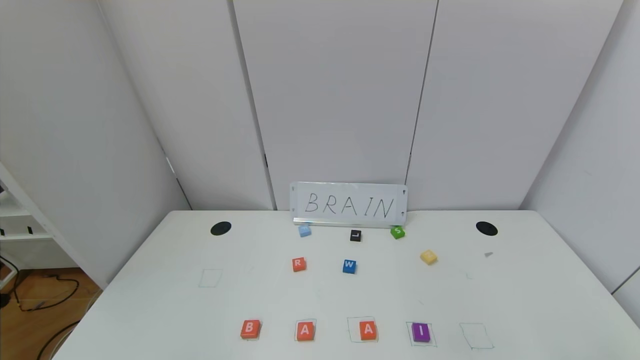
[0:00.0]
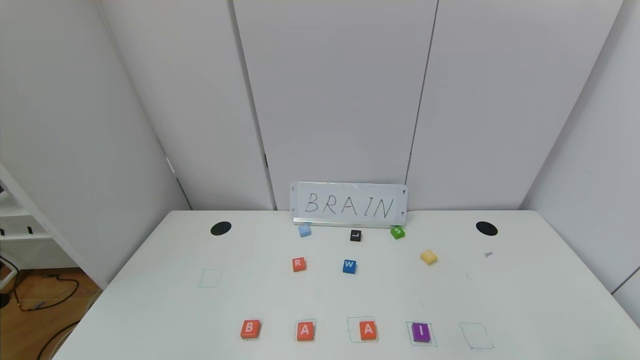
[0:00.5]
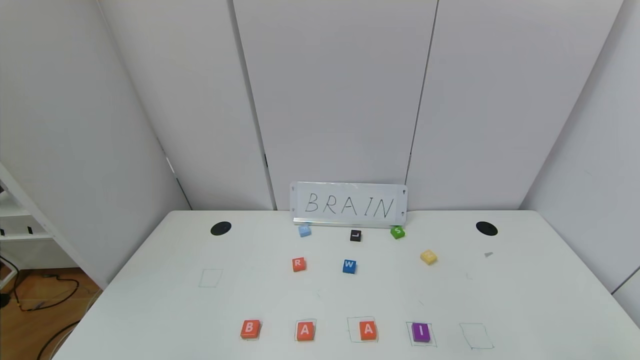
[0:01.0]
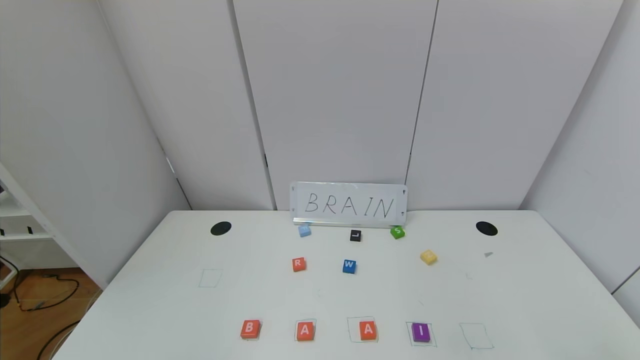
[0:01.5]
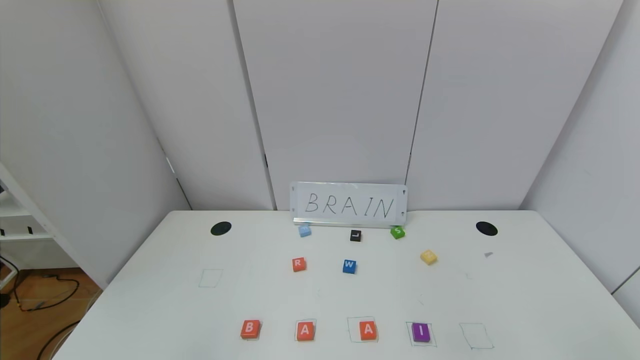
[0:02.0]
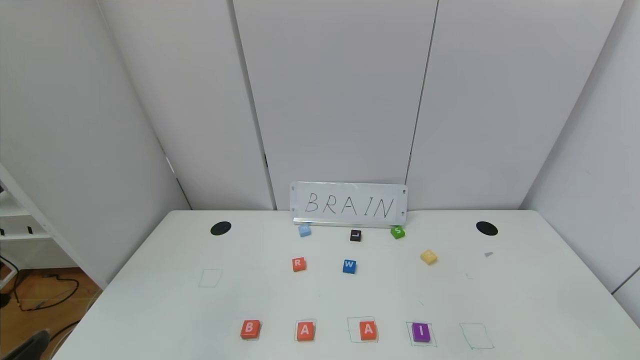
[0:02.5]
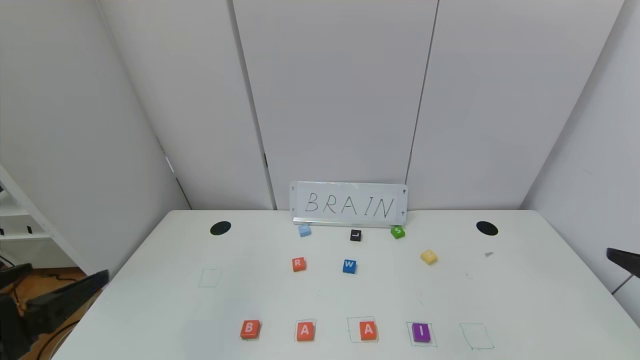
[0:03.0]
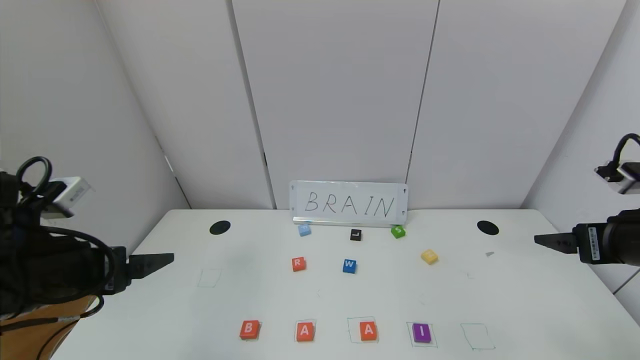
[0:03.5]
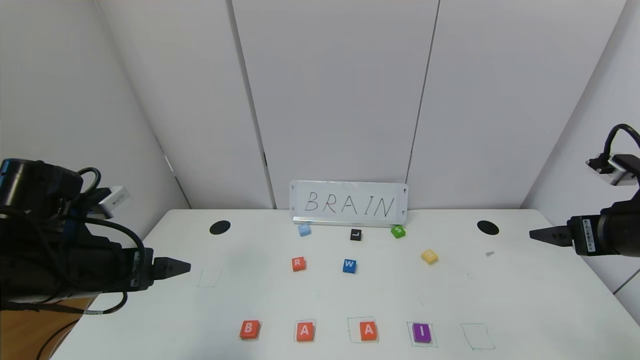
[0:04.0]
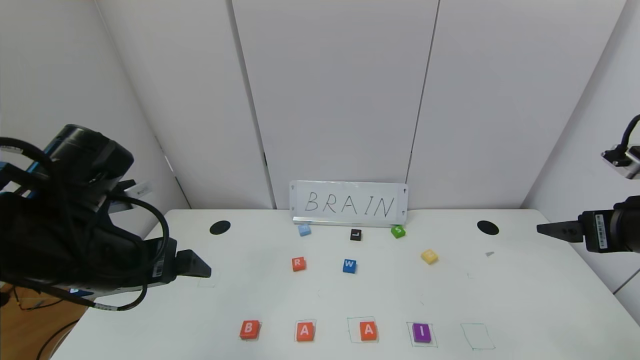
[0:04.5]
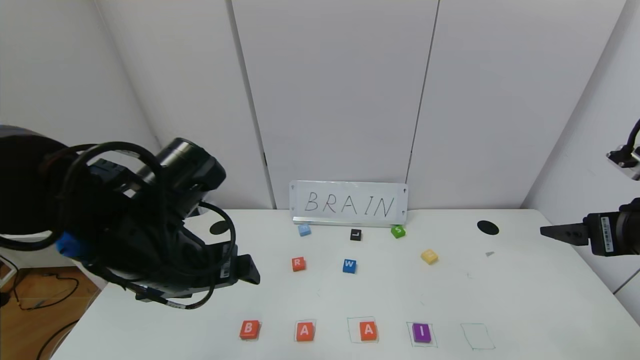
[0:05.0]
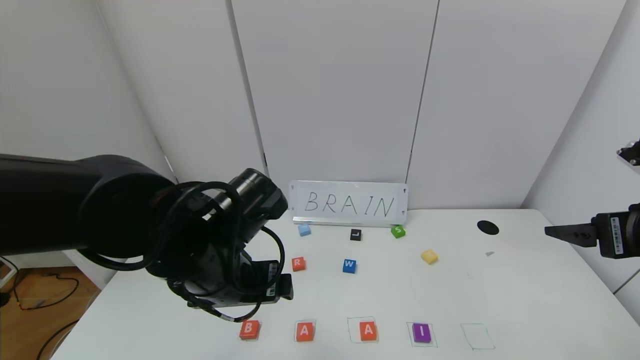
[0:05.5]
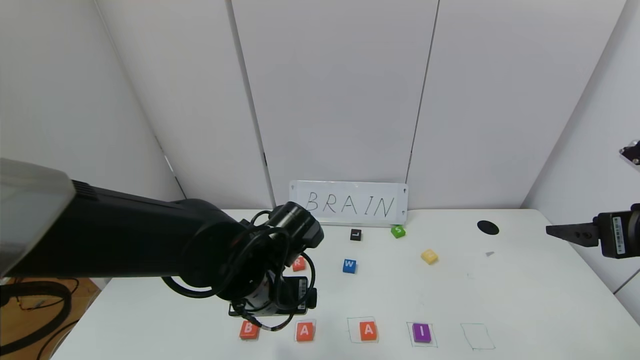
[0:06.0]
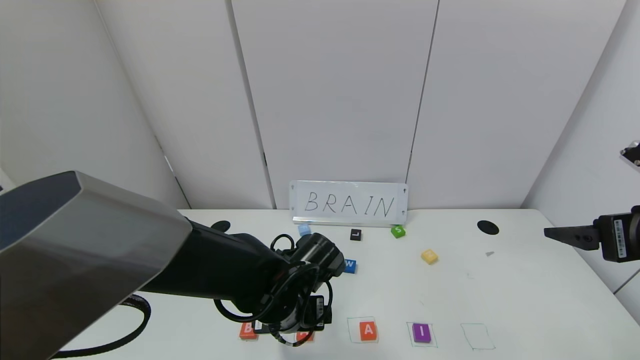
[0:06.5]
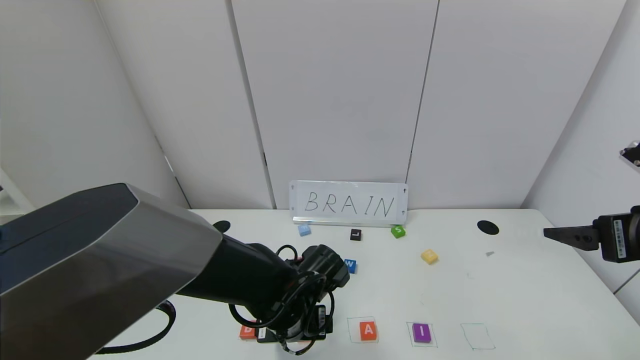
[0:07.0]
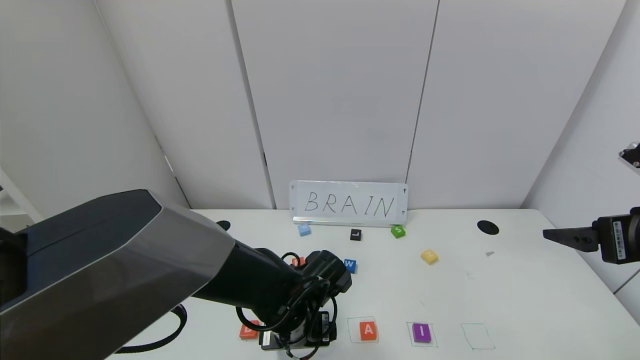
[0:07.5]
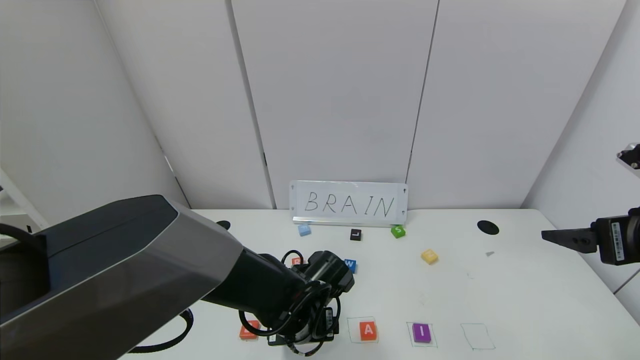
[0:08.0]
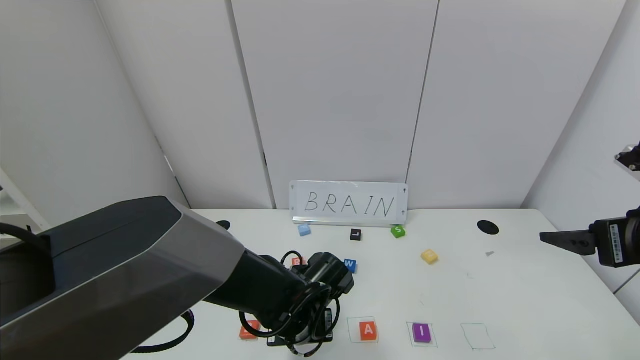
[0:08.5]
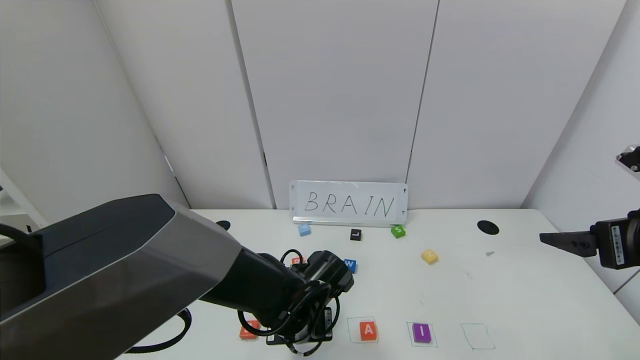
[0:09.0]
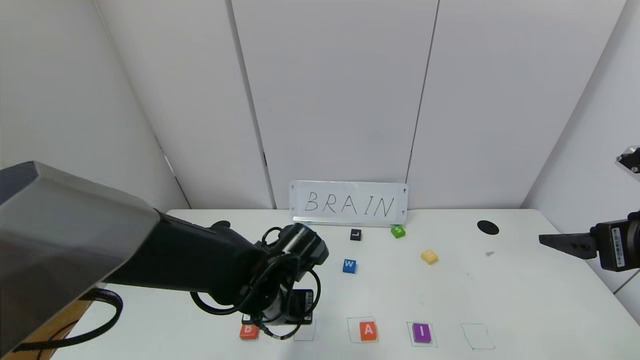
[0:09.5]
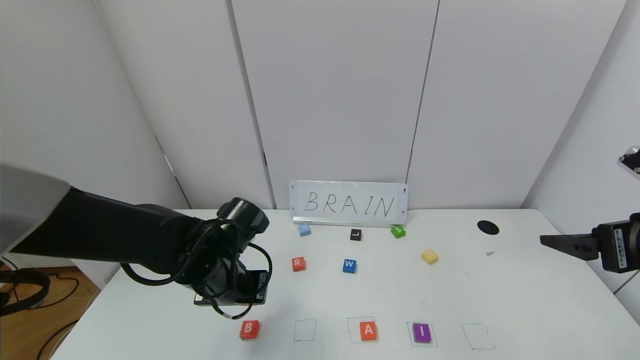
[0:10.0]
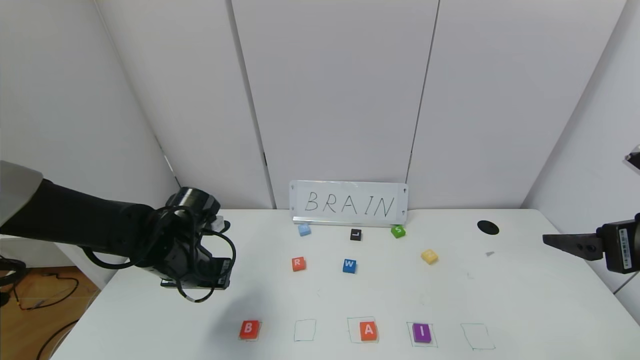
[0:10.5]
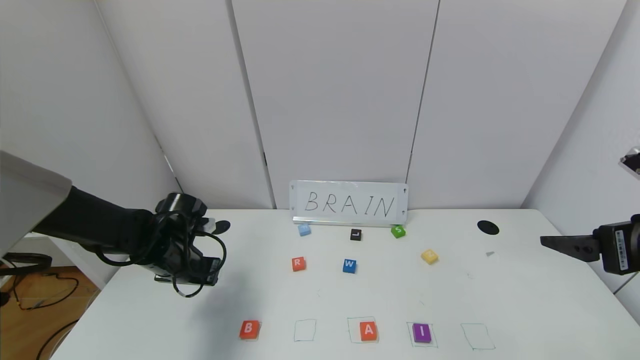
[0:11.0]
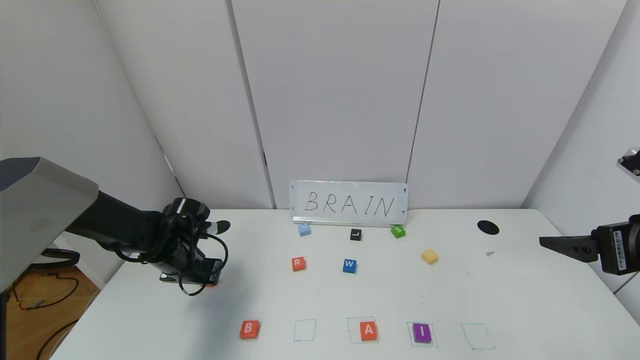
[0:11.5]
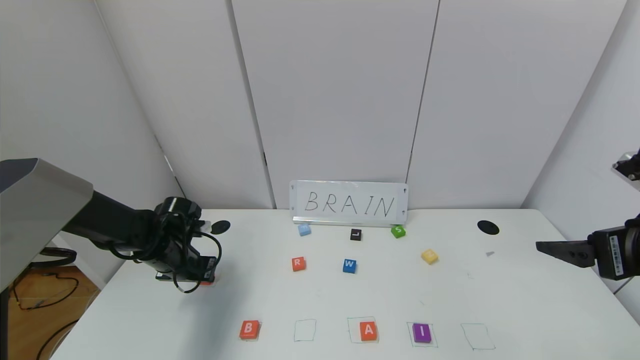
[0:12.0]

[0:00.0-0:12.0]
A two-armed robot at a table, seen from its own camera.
Task of the whole recording: use the gripper to find blocks with the letters b, a, a, and i on the table and arrange them into BAAI, then find r and N and turn the arranged baai into brian.
0:02.0 to 0:04.0: Both grippers travel together forward, some 25 cm.
0:04.0 to 0:06.0: The left gripper travels to the right by about 20 cm.
0:06.0 to 0:08.0: The left gripper moves downward, some 10 cm.
0:08.0 to 0:10.0: The left gripper shifts roughly 15 cm to the left and upward, and closes its fingers.
0:10.0 to 0:12.0: The left gripper moves to the left, forward and downward, some 15 cm.

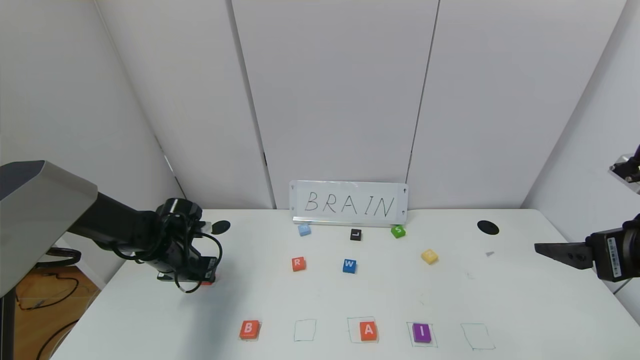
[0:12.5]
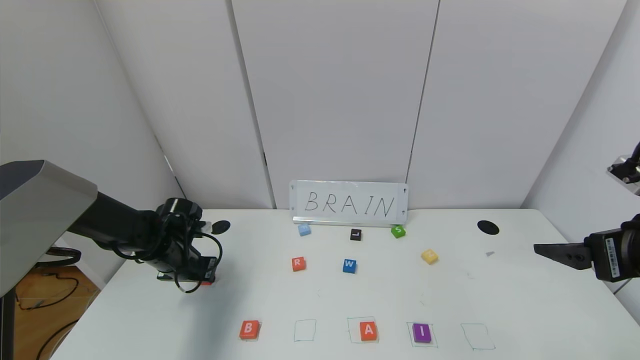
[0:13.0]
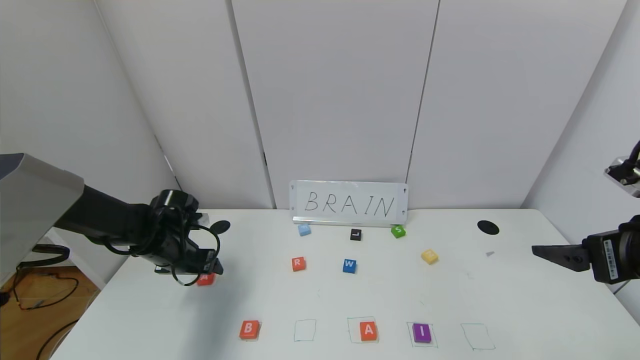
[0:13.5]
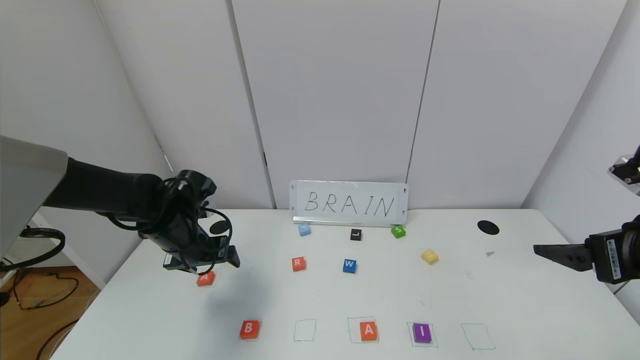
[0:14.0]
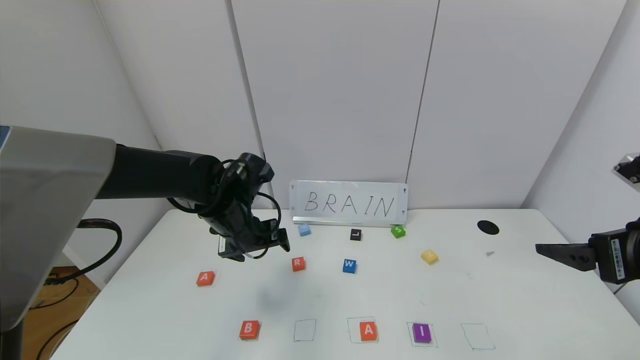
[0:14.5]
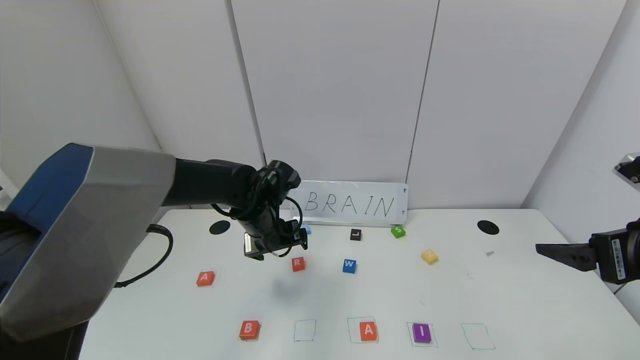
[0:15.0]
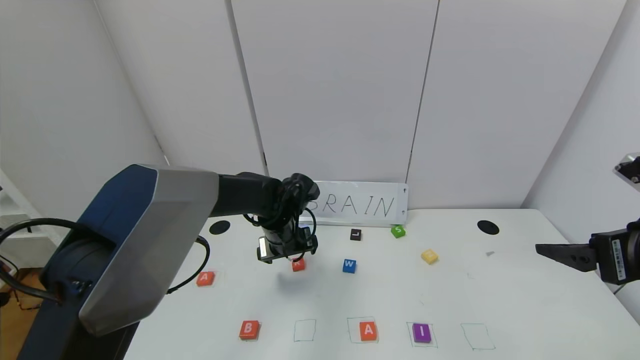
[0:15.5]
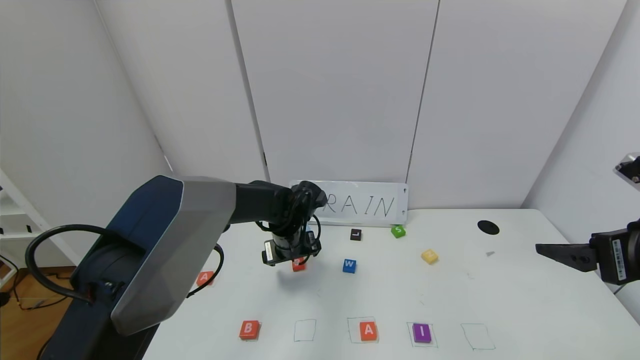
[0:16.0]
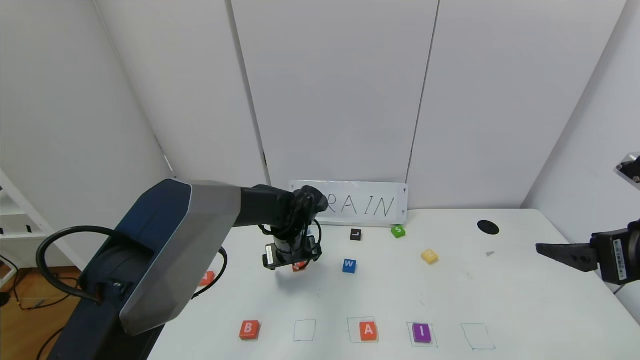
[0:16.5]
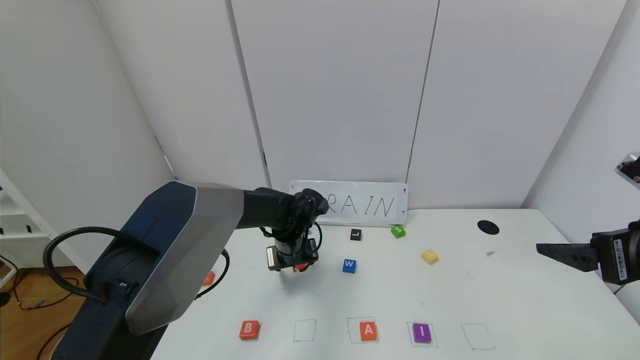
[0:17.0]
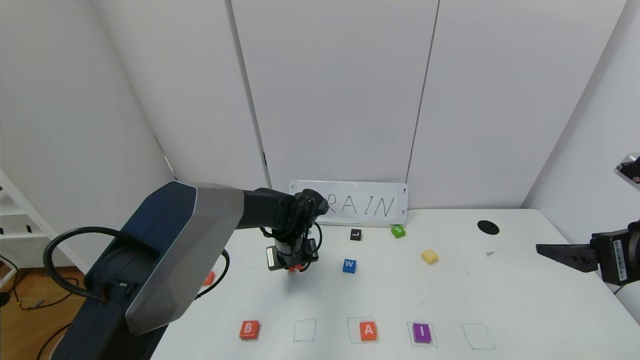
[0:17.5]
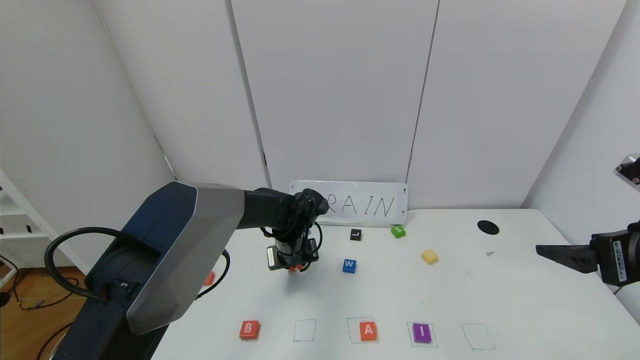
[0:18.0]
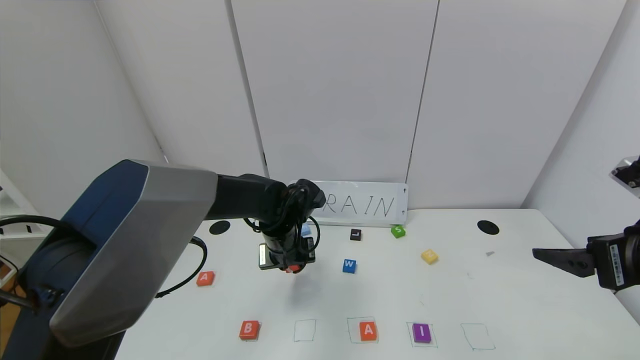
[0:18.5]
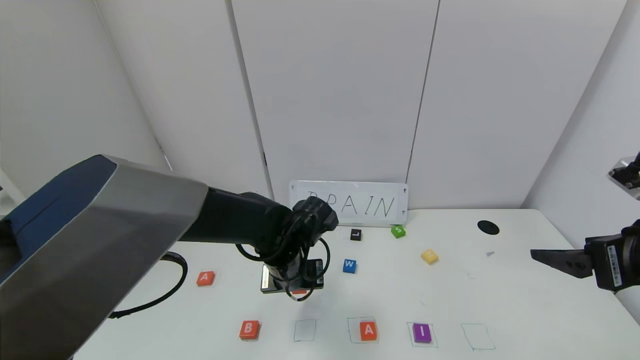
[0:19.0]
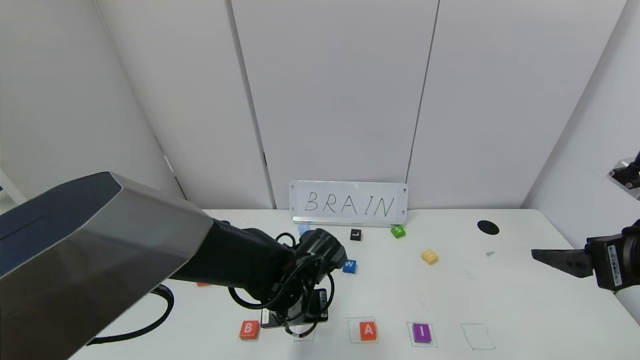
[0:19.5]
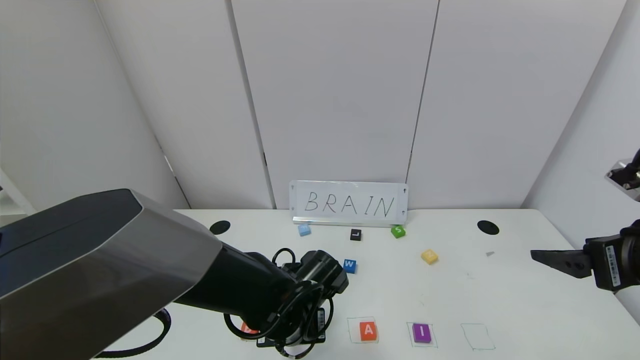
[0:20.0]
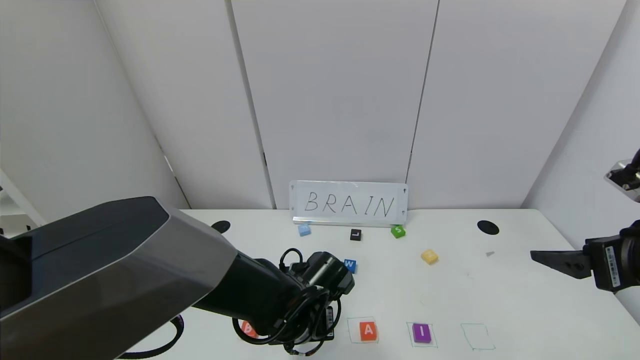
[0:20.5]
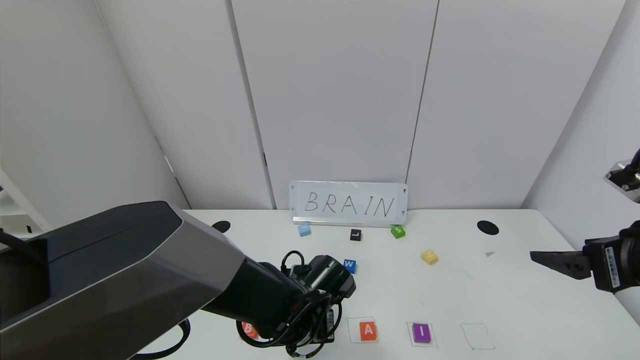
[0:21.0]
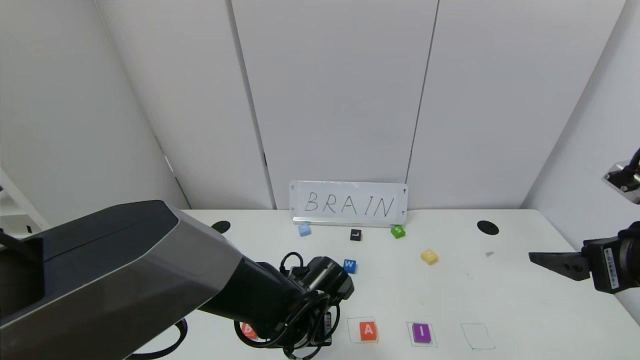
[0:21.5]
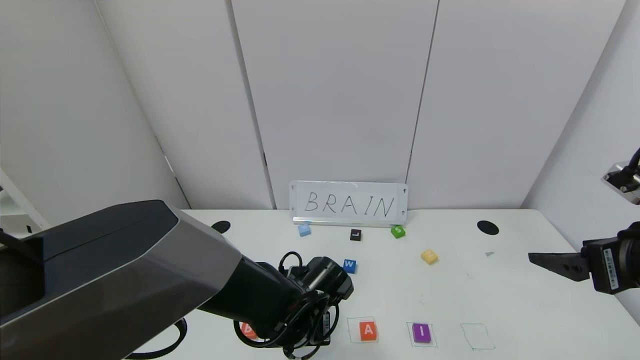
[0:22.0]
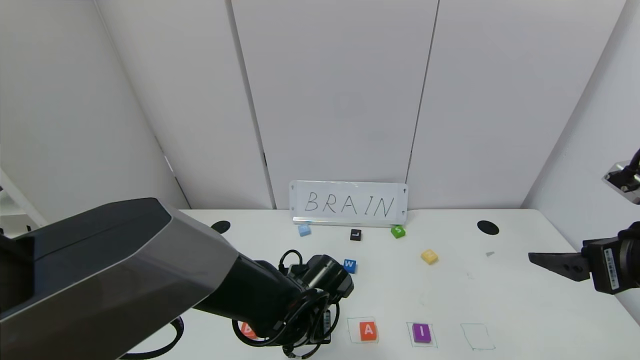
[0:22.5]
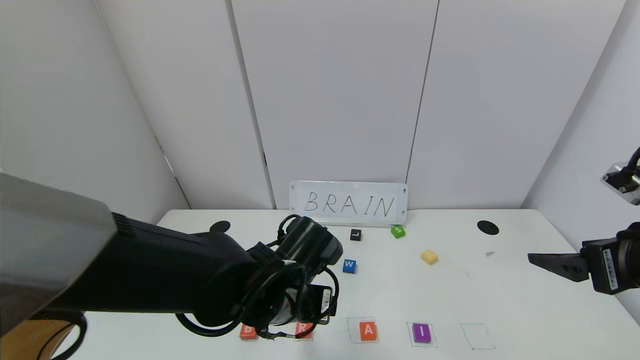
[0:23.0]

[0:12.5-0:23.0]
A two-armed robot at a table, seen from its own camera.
Task of the whole recording: use the gripper to find blocks with the letters b, a, a, and i on the table and arrange them into BAAI, then find r and N and turn the arranged baai into brian.
Step, 0:13.5 to 0:22.5: Place the block R in the second location.
0:12.5 to 0:14.5: The left gripper goes roughly 20 cm to the right and upward, and opens.
0:14.5 to 0:16.5: The left gripper shifts some 10 cm downward and to the right.
0:16.5 to 0:19.0: The left gripper goes roughly 10 cm backward, and closes up.
0:19.0 to 0:21.0: The left gripper goes some 10 cm downward and backward.
0:21.0 to 0:23.0: The left gripper heads upward, covering approximately 10 cm, and opens its fingers.
